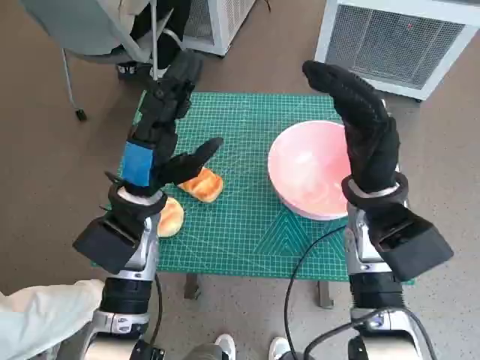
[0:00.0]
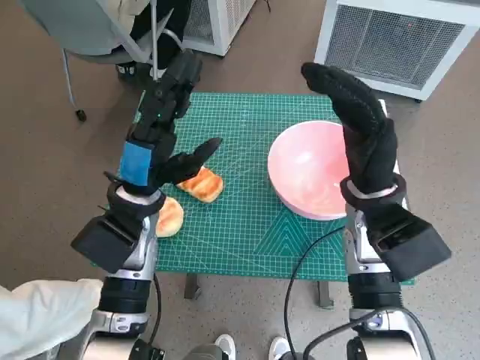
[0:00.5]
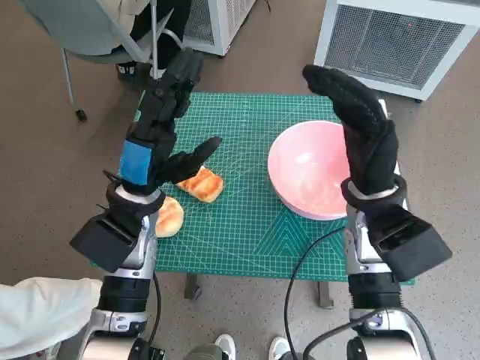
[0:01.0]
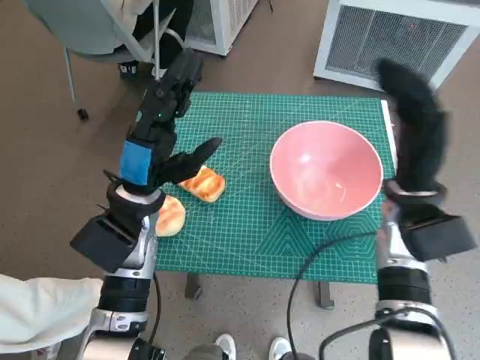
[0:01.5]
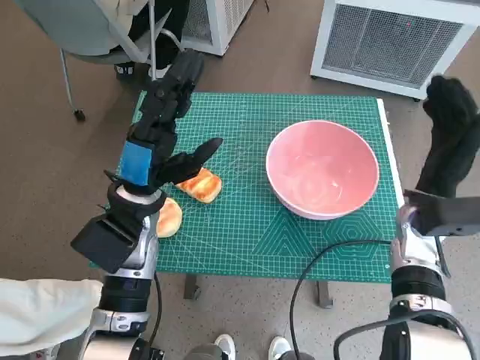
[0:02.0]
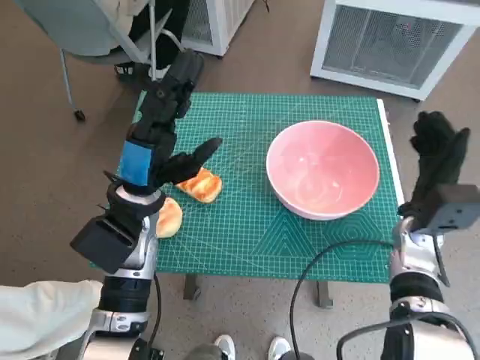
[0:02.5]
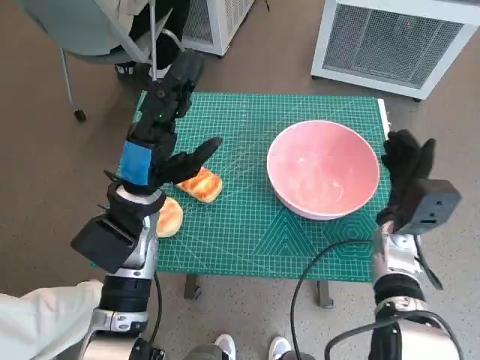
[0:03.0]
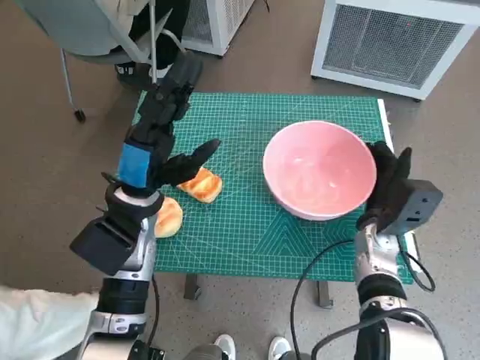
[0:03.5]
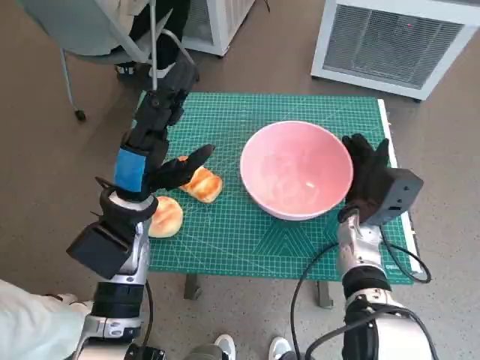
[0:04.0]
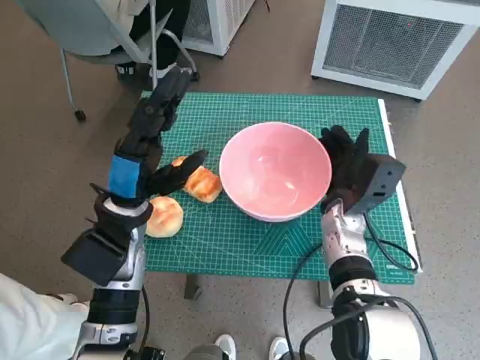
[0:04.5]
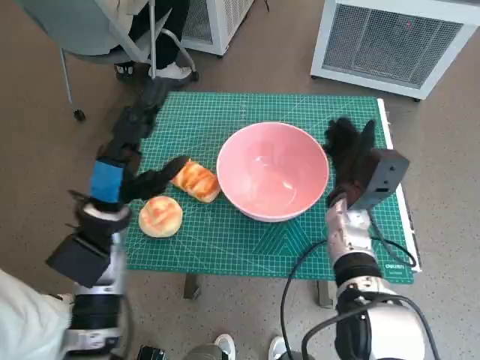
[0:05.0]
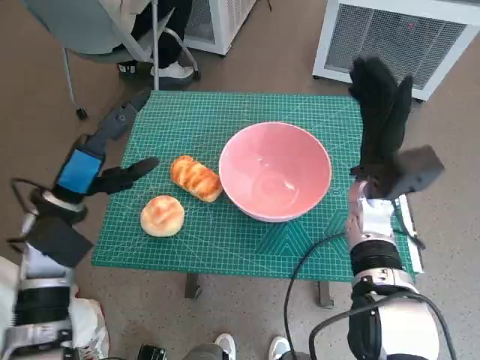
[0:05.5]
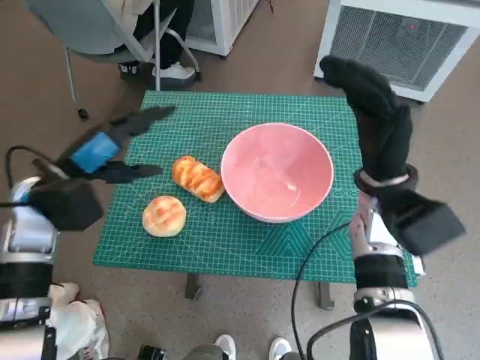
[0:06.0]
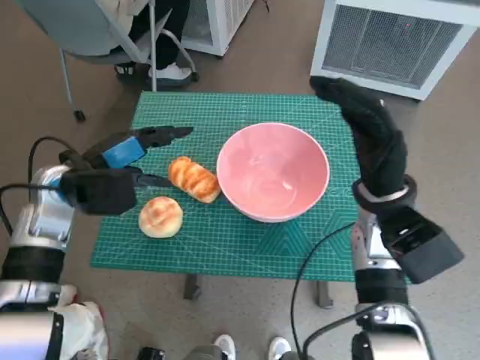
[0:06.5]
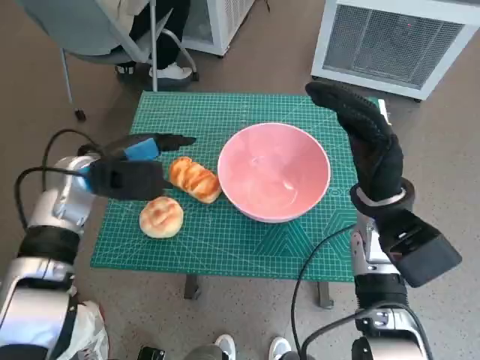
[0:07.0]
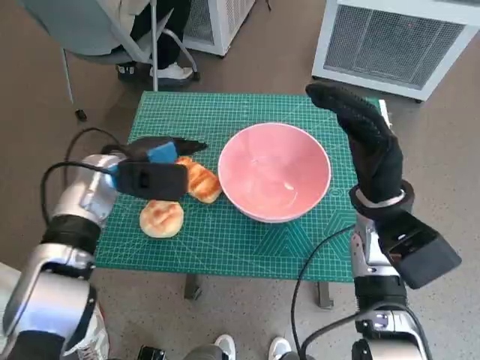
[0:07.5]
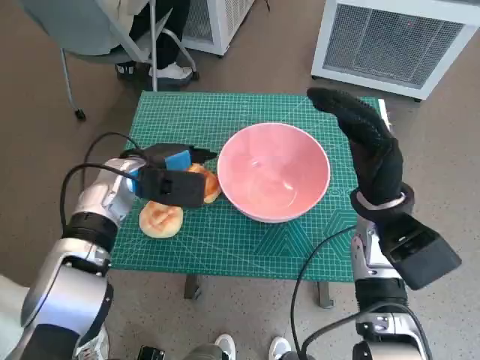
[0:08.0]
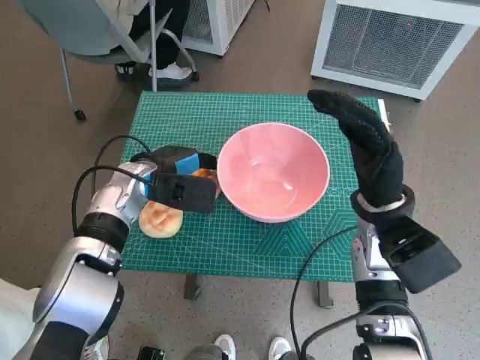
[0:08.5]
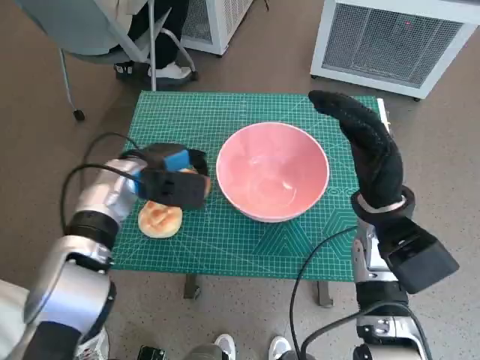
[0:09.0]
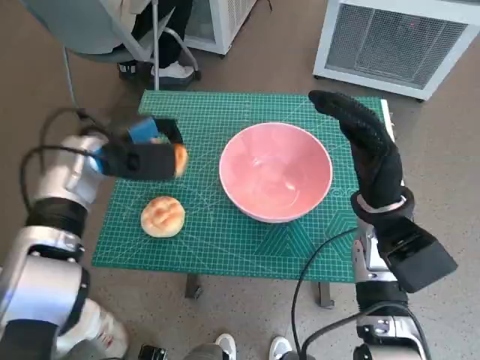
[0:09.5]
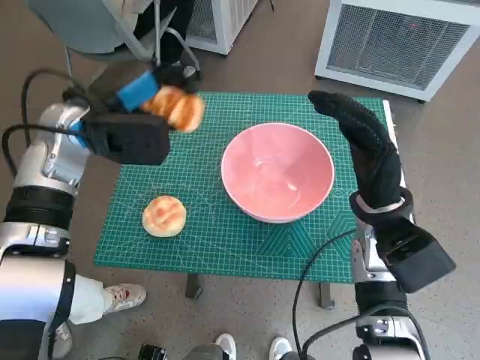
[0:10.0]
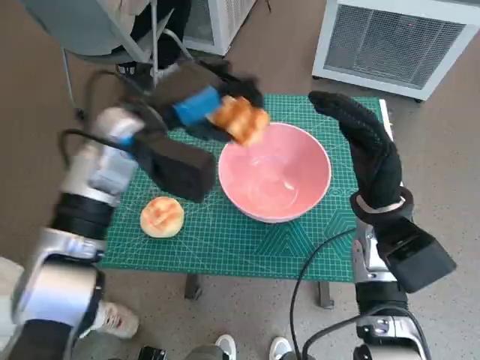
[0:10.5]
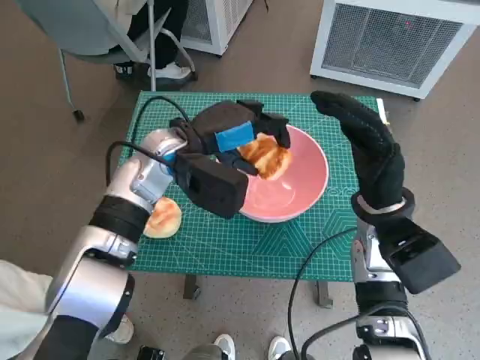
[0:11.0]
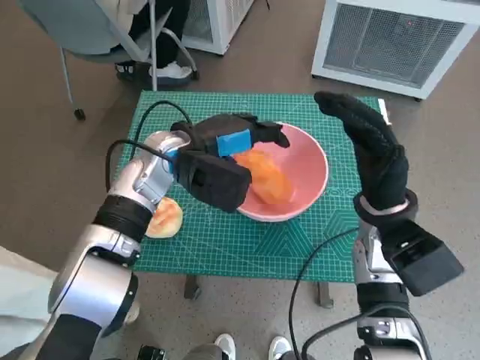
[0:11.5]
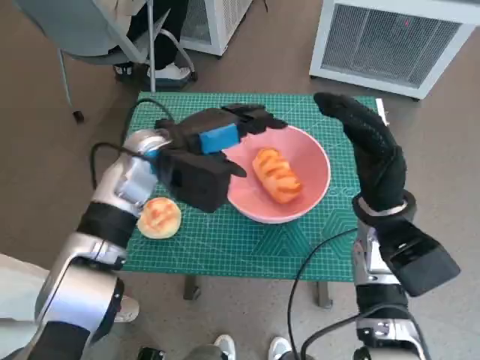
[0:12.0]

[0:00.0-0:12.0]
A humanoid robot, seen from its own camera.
Task of the whole recording: Push the bowl to the center of the table and put the bread into the bowl.
Step, 0:00.0 to 0:05.0: Move the pink bowl to the center of table with right hand.
Step, 0:05.5 to 0:08.5: Grasp the long bread with left hand.
Step, 0:09.0 to 0:11.5: Place the long bread in pink bowl with left hand.
0:02.0 to 0:04.0: The right hand goes some 10 cm downward and to the left.
0:04.0 to 0:06.0: The left hand moves to the left, some 10 cm. The right hand goes some 10 cm upward.
0:06.0 to 0:08.0: The left hand is displaced to the right and forward by some 10 cm.
0:08.0 to 0:10.0: The left hand moves upward, some 10 cm.
0:10.0 to 0:12.0: The left hand moves to the right, approximately 10 cm.

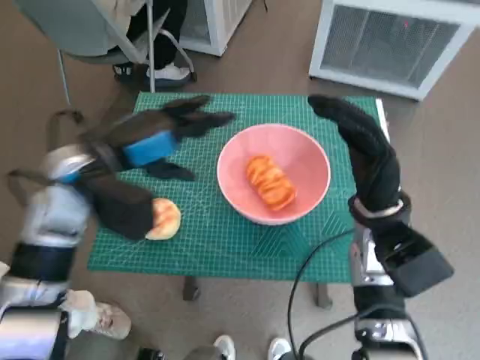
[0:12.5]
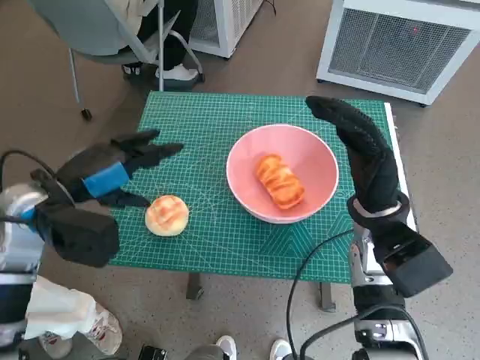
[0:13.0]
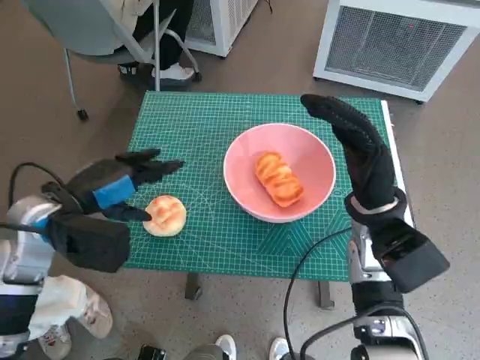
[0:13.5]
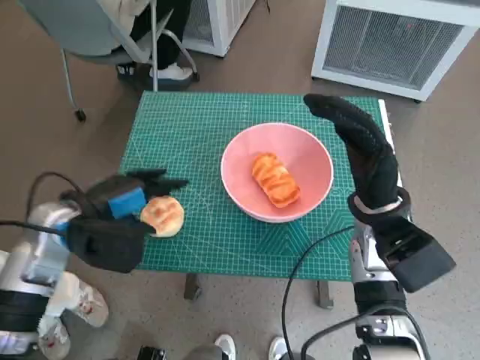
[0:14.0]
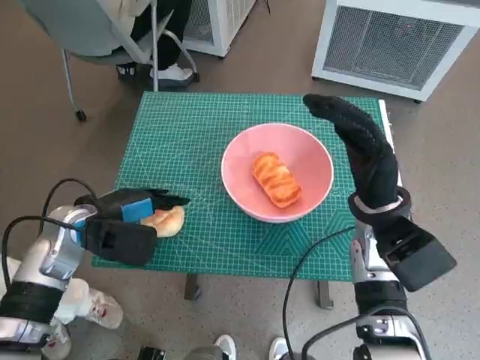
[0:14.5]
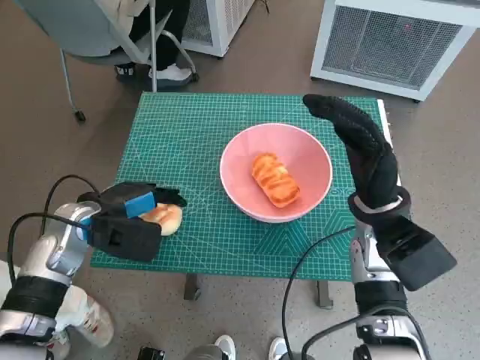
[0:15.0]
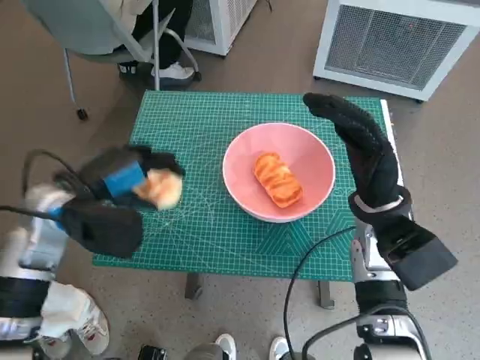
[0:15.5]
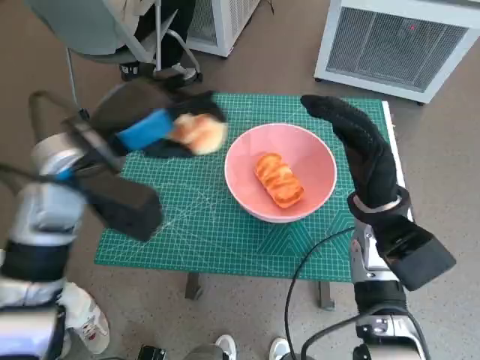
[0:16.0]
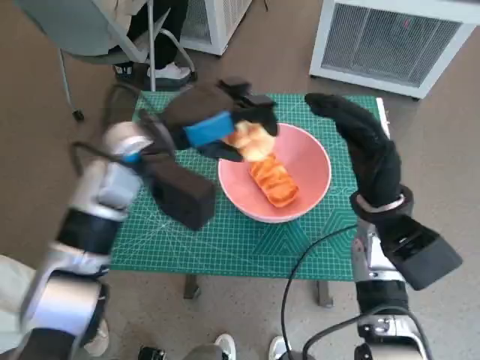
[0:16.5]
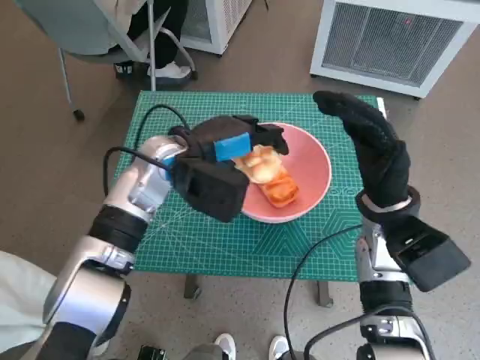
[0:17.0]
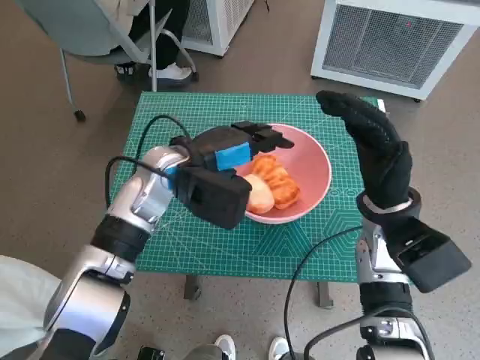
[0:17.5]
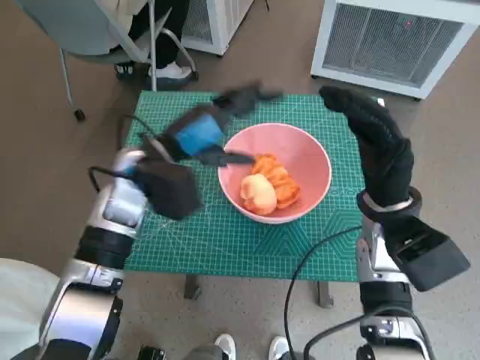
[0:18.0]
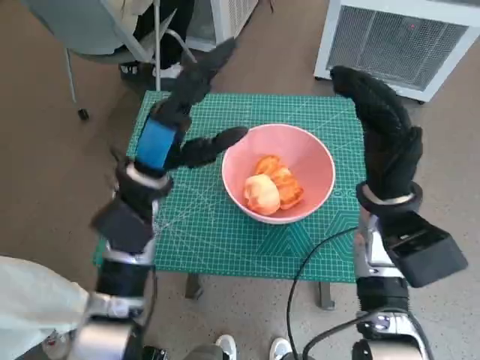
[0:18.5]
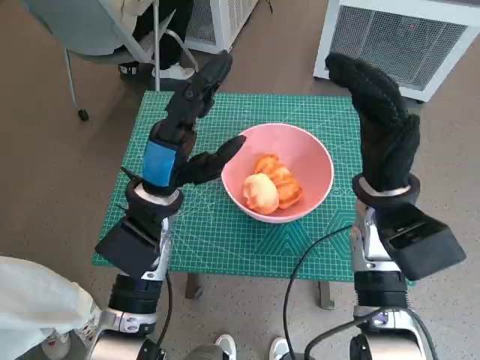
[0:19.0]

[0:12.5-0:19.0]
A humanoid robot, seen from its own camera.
Task of the whole recording: Push the bowl to the center of the table and put the bread into the bowl.
Step, 0:12.5 to 0:15.0: Grasp the round bread with left hand.
Step, 0:15.5 to 0:17.5: Place the round bread in pink bowl with left hand.
0:12.5 to 0:14.5: The left hand travels downward and to the left by approximately 10 cm.
0:14.5 to 0:17.0: The left hand shifts some 15 cm to the right, forward and upward.
0:17.0 to 0:19.0: The left hand goes approximately 5 cm backward.

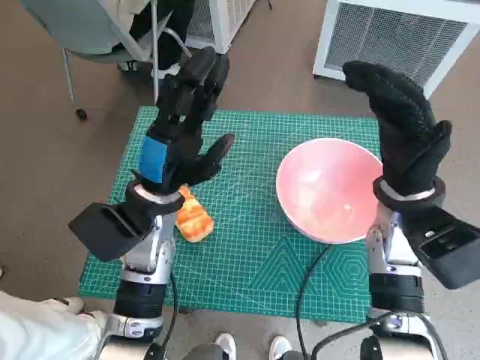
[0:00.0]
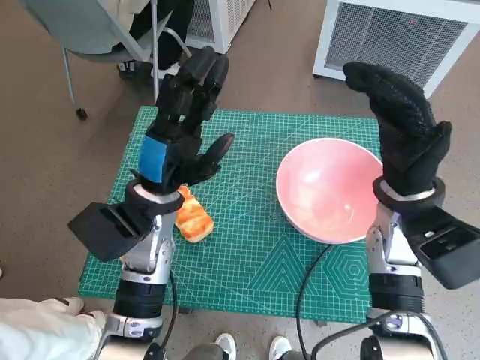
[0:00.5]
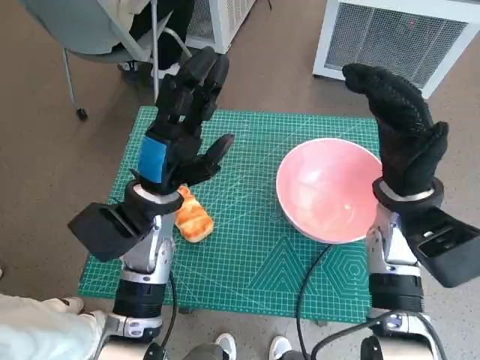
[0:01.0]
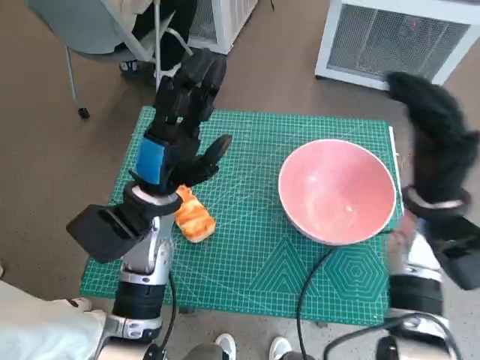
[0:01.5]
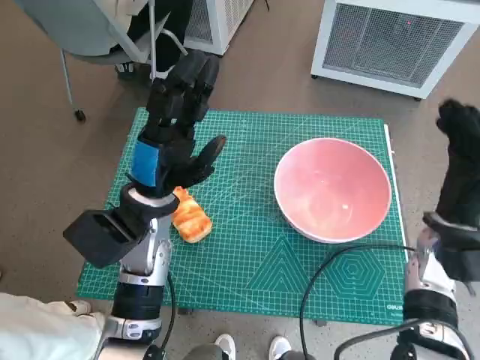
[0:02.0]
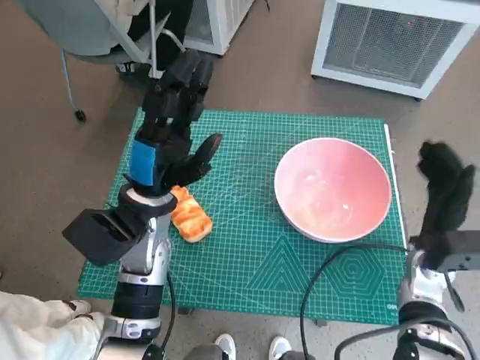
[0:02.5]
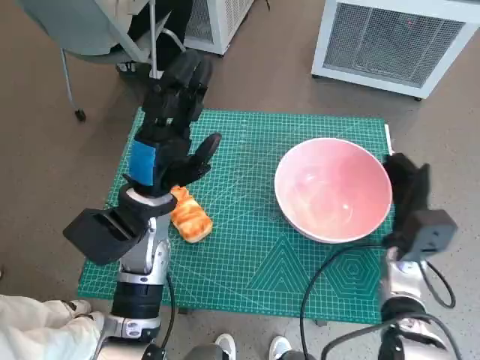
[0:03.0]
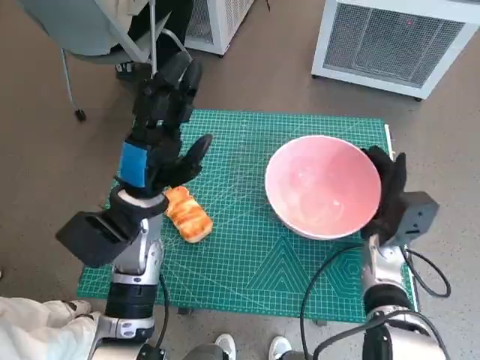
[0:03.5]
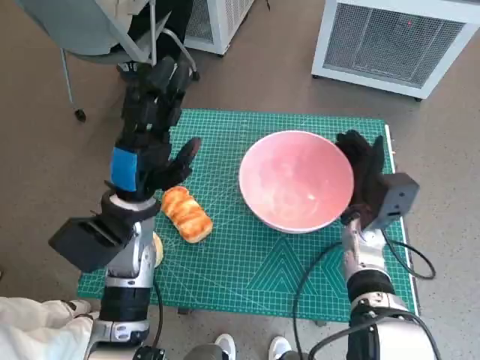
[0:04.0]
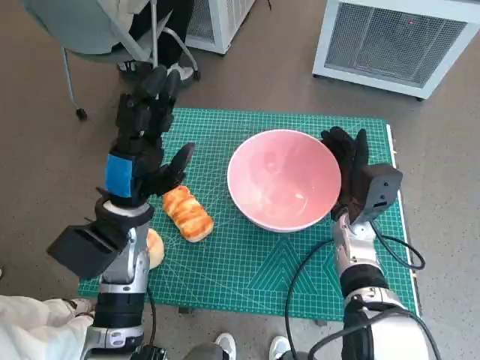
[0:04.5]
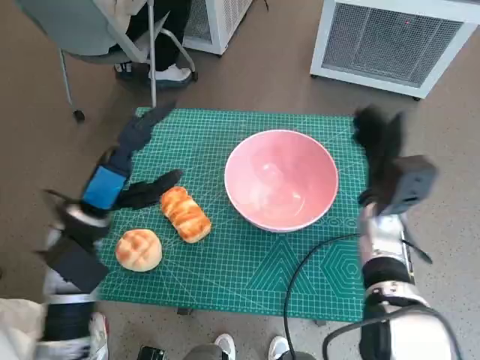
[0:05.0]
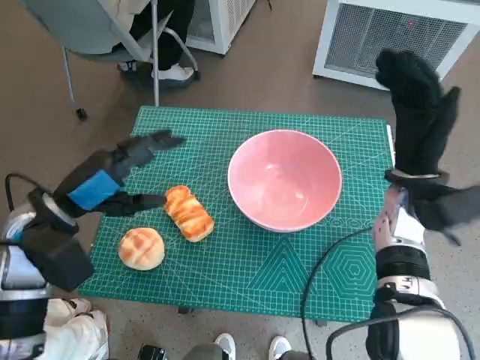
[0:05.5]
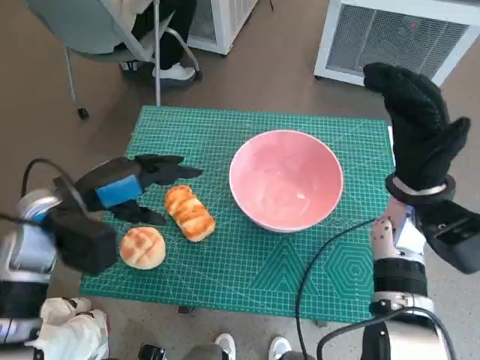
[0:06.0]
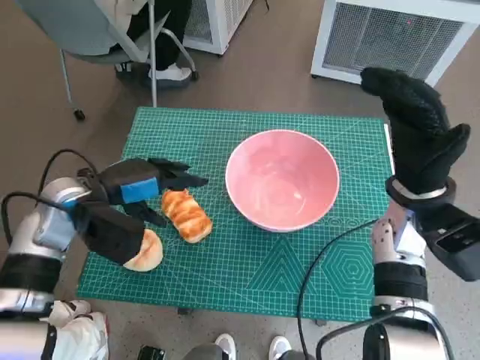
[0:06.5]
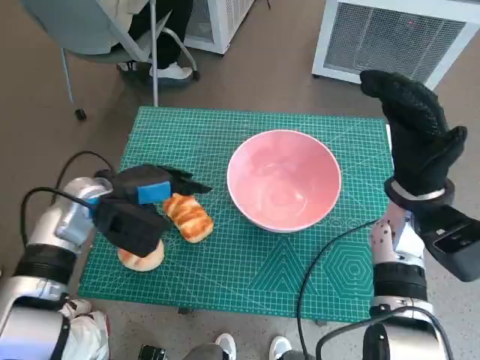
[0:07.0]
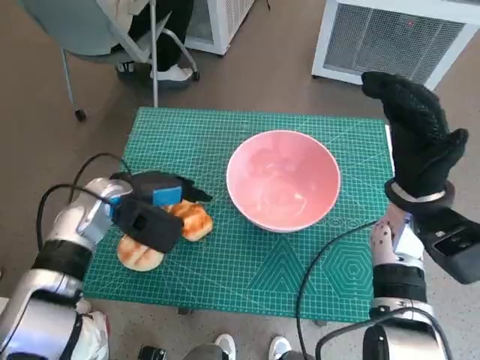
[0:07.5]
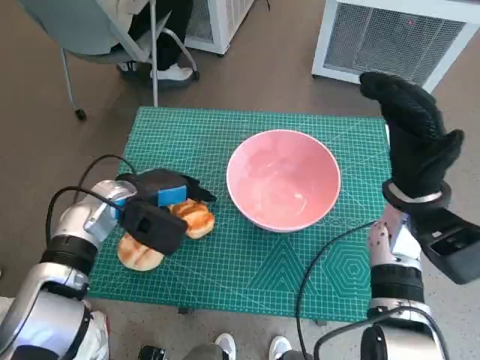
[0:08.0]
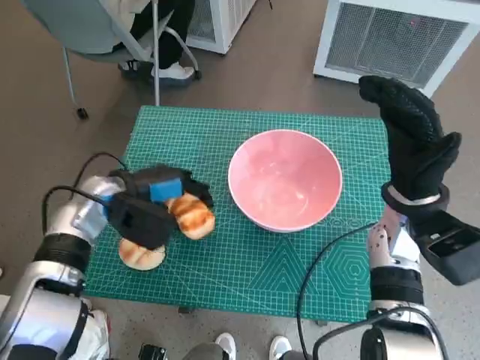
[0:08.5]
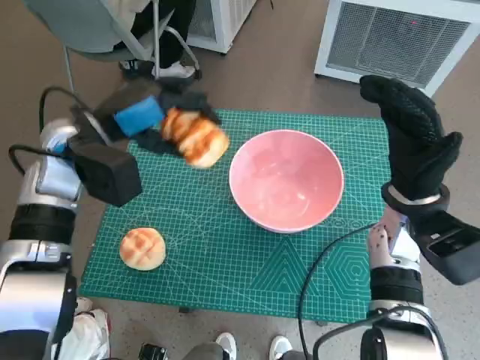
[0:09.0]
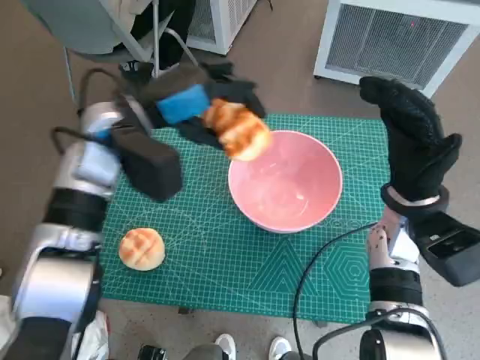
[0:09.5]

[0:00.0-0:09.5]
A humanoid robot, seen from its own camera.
Task of the whole recording: Push the bowl to the center of the table and put the bread into the bowl.
Step, 0:00.0 to 0:05.0: Move the pink bowl to the center of table with right hand.
Step, 0:05.5 to 0:08.0: Grasp the long bread with left hand.
0:02.0 to 0:04.0: The right hand goes approximately 10 cm to the left and downward.
0:04.0 to 0:05.5: The right hand goes about 10 cm upward. The left hand is displaced to the left by roughly 10 cm.
0:05.5 to 0:07.5: The left hand heads forward, covering approximately 5 cm.
0:07.5 to 0:09.5: The left hand moves upward, some 10 cm.
